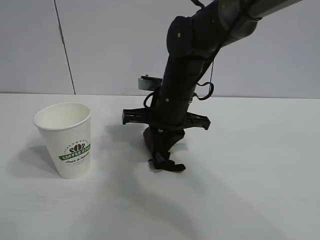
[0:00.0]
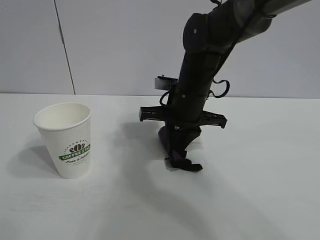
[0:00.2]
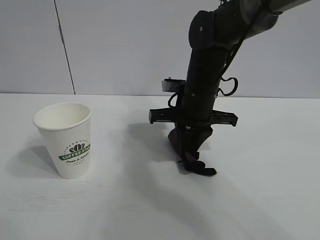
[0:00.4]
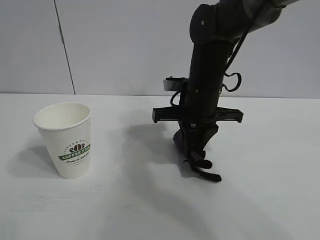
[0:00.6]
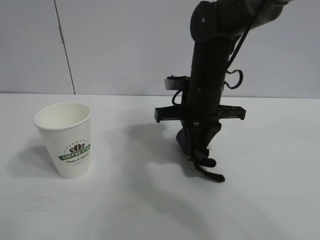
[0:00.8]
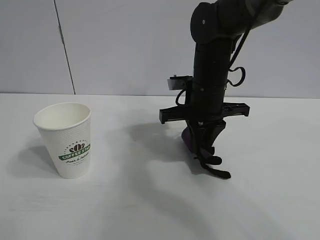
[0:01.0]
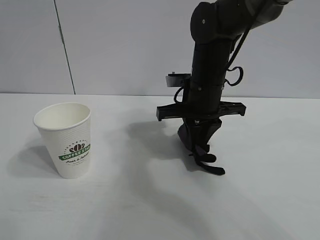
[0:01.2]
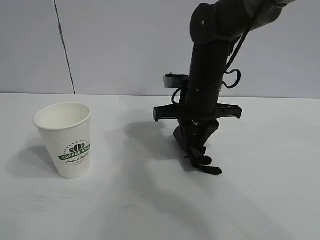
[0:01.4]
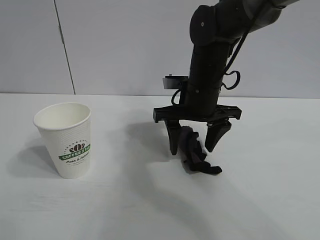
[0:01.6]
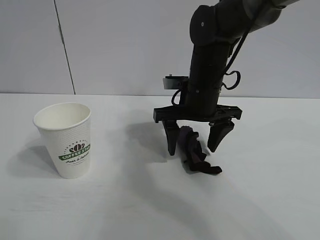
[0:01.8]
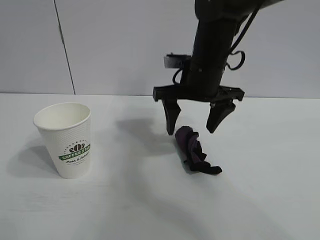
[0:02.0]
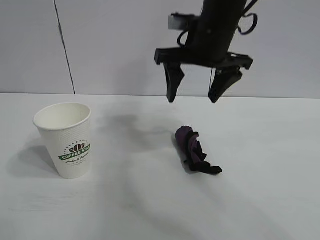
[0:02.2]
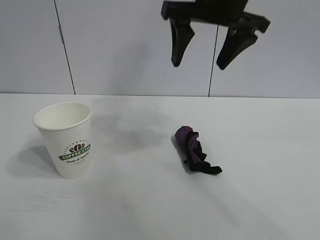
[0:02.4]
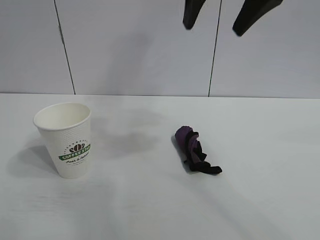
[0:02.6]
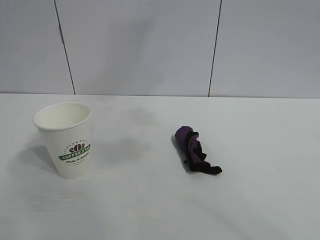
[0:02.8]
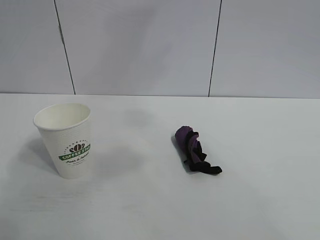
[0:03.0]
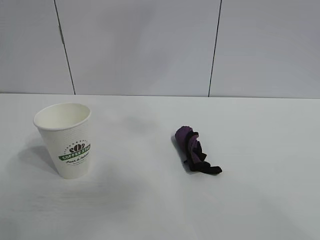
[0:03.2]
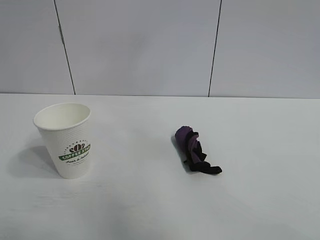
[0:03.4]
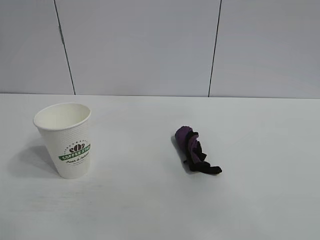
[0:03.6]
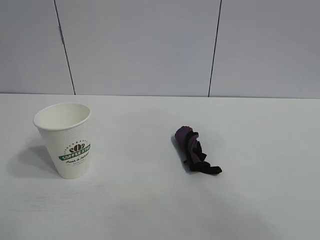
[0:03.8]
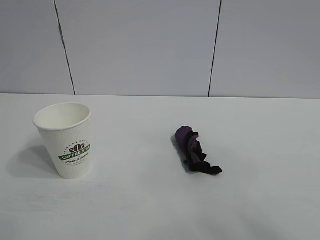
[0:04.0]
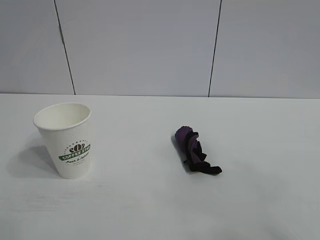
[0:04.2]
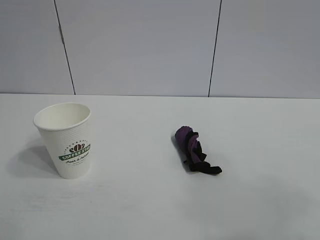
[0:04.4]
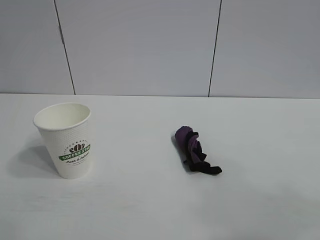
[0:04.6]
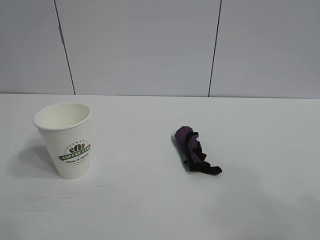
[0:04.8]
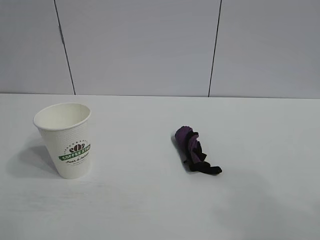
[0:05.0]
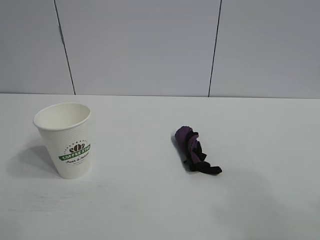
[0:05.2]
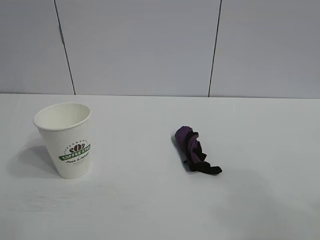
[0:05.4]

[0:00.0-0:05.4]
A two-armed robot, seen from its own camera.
Task of the whole recording: the left gripper pick up the fallen cup and place it upright, the right gripper grasp the black rag and wipe the stain on the table, the right gripper put the black rag back in its original position.
Step, 0:00.4 to 0:01.4: Place the rag on the table with right gripper.
